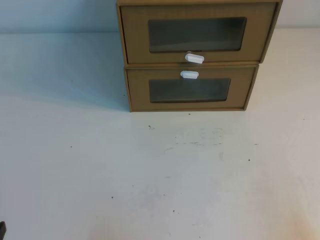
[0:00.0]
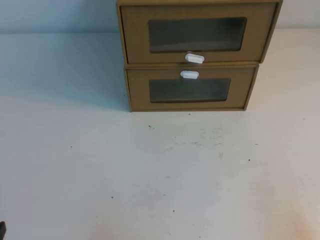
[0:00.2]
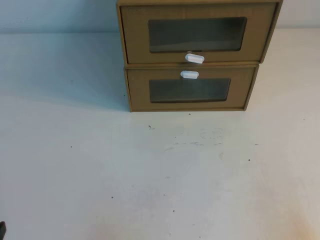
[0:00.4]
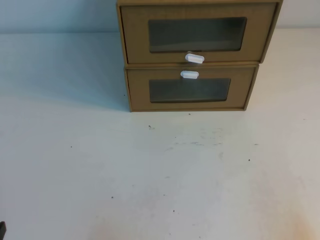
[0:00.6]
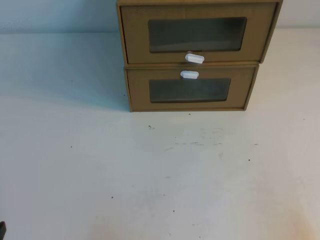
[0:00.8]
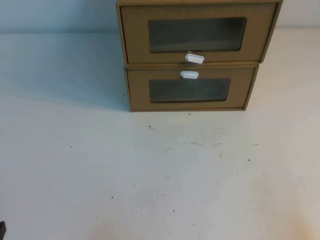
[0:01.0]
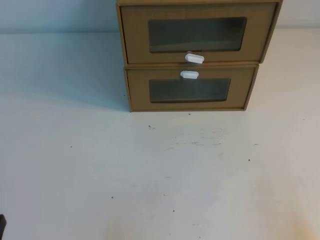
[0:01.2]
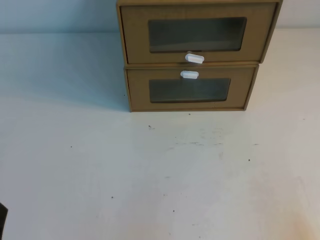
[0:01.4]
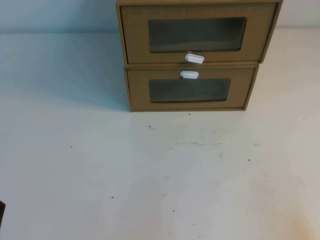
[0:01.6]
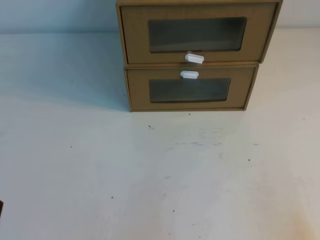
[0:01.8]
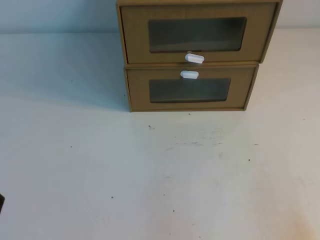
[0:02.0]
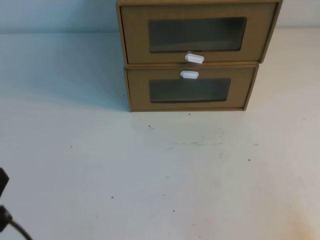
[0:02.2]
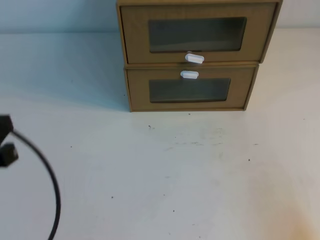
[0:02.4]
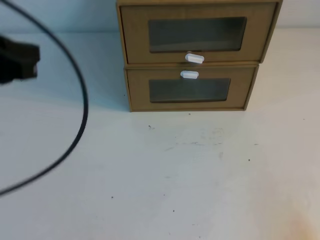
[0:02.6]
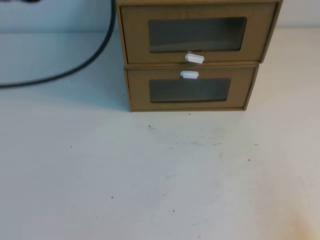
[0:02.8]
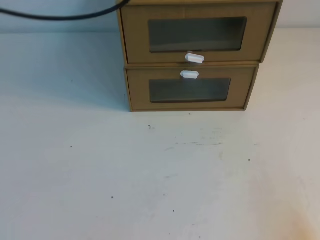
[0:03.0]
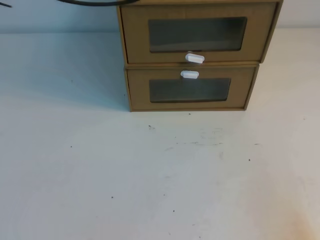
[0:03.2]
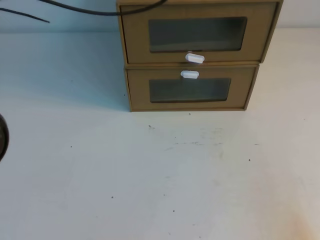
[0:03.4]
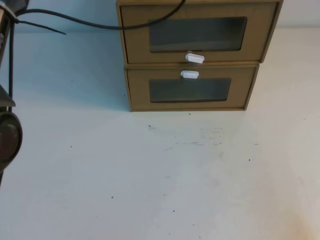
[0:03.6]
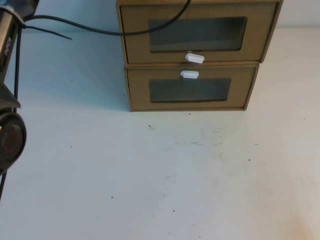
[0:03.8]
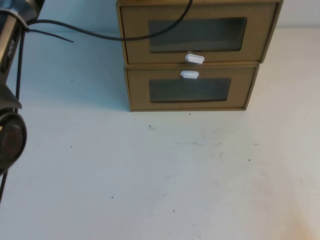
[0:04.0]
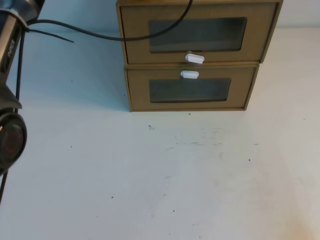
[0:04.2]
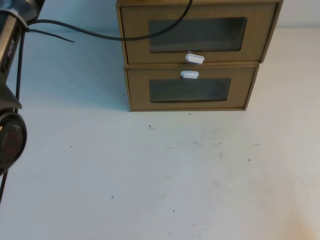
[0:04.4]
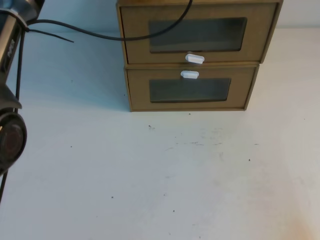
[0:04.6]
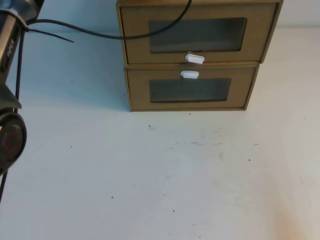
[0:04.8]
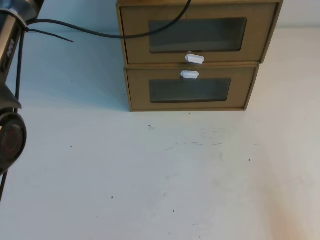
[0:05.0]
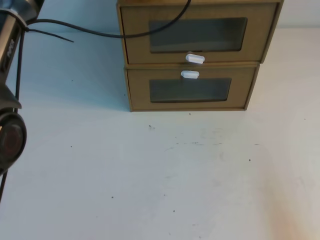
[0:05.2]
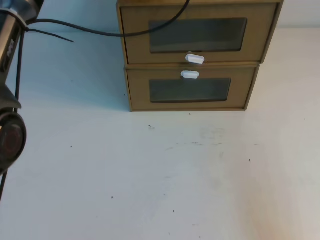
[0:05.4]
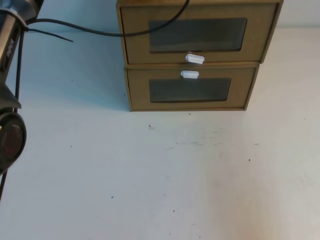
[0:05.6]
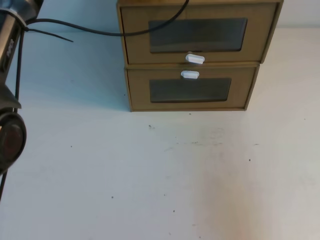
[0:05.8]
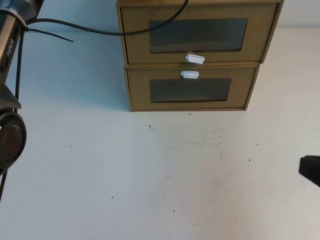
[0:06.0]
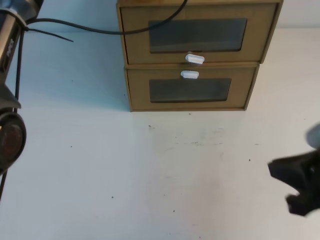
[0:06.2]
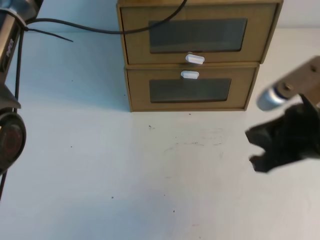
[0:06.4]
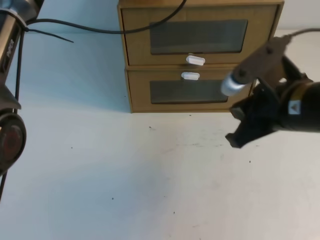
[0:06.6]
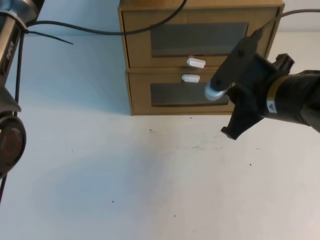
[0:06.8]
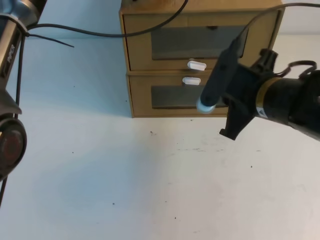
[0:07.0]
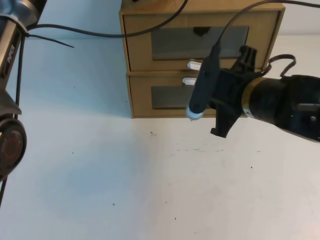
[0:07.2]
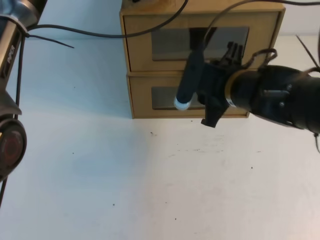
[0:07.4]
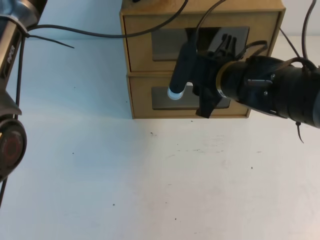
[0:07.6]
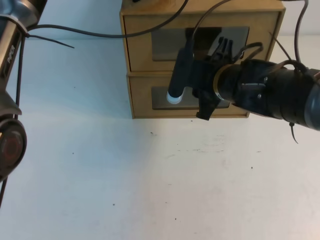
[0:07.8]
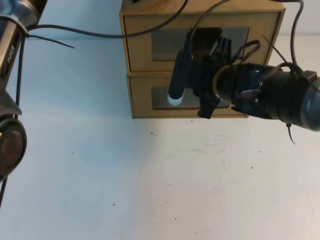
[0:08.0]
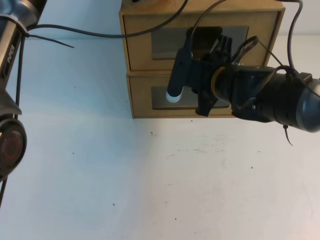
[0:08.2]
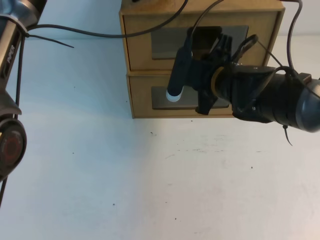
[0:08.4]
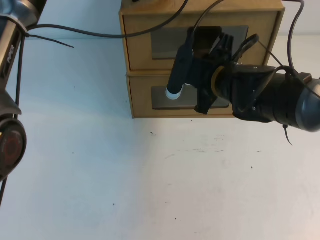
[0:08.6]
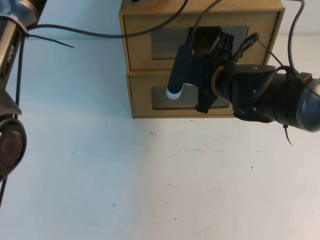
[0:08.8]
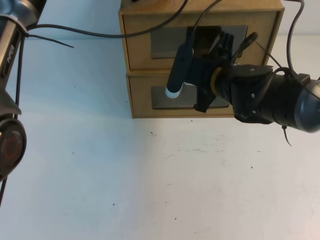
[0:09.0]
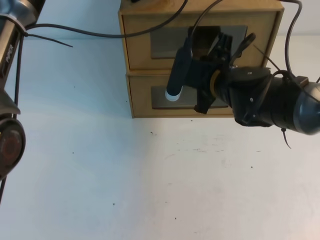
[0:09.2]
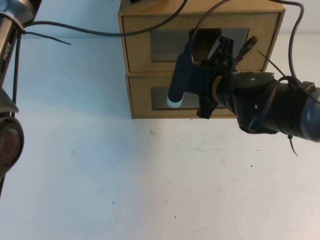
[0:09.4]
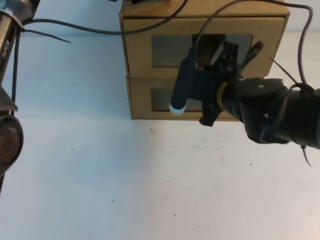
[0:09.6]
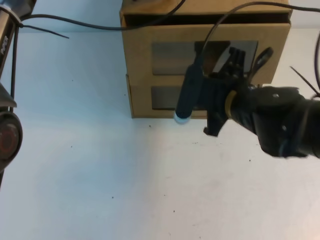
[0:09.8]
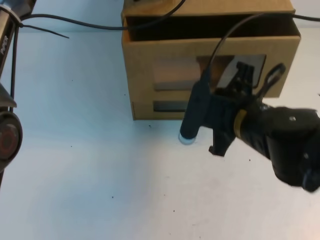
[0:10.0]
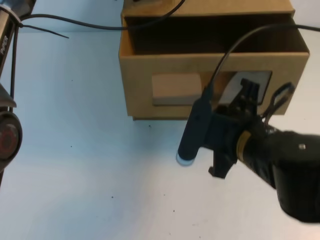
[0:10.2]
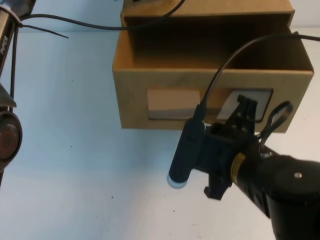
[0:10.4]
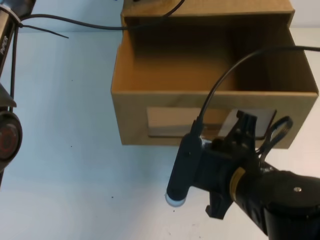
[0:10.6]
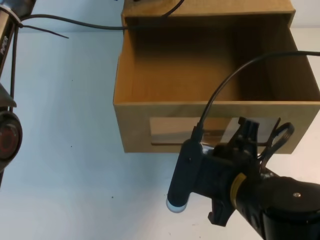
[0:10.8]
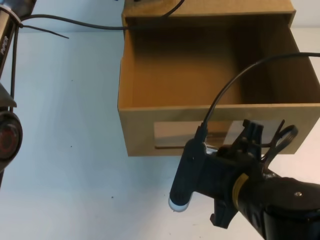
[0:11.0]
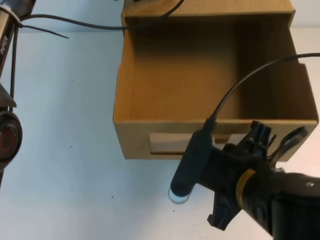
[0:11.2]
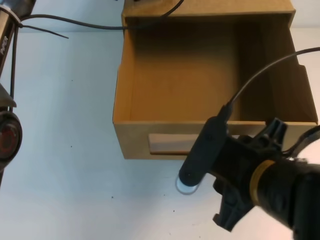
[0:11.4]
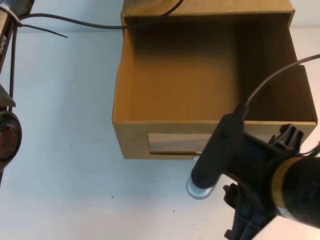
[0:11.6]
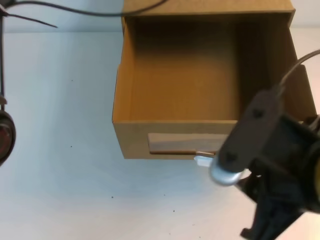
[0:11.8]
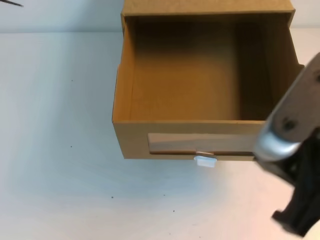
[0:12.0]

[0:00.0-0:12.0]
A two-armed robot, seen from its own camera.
Task of the whole recording: open the shoebox on the table.
0:01.6 to 0:03.0: The left gripper shifts about 40 cm upward and forward.
0:03.0 to 0:04.4: The left gripper moves forward, downward and to the right, some 20 cm.
0:04.4 to 0:06.0: The right gripper shifts about 15 cm upward, forward and to the left.
0:06.0 to 0:07.6: The right gripper moves forward and to the left, roughly 30 cm, and opens up.
0:07.6 to 0:09.0: The right gripper closes.
0:09.0 to 0:10.4: The right gripper moves backward, about 20 cm.
0:10.4 to 0:12.0: The left gripper shifts about 15 cm upward and backward. Meanwhile the right gripper is displaced upward, backward and to the right by roughly 15 cm, and opens up.

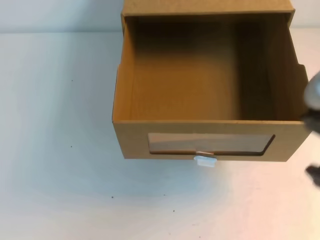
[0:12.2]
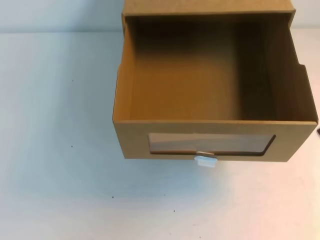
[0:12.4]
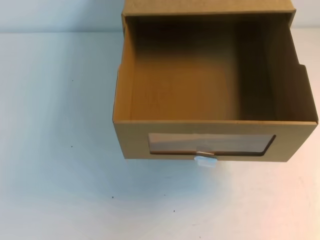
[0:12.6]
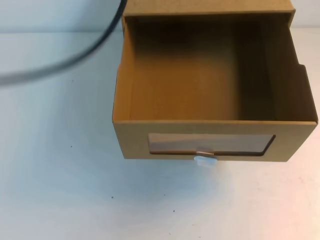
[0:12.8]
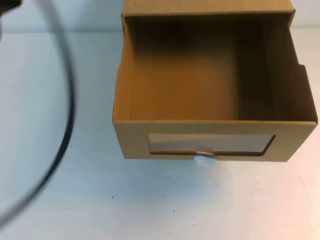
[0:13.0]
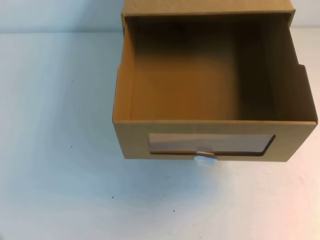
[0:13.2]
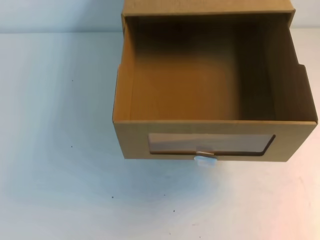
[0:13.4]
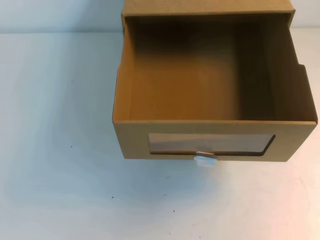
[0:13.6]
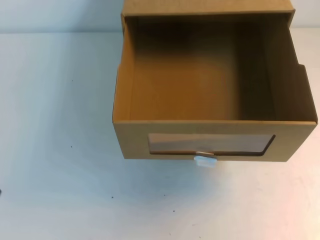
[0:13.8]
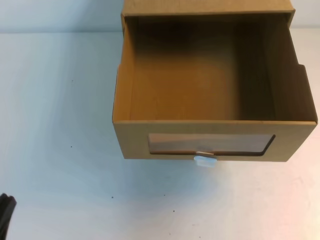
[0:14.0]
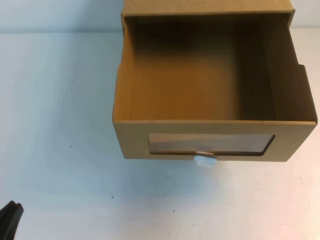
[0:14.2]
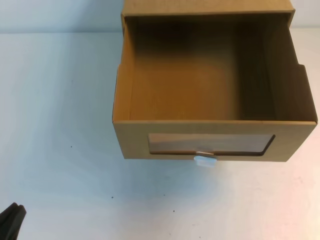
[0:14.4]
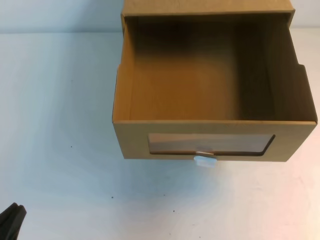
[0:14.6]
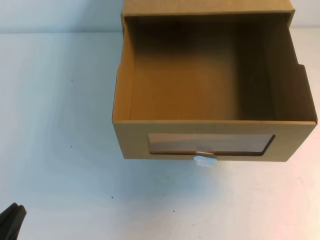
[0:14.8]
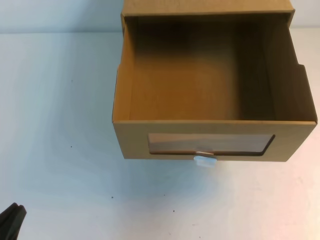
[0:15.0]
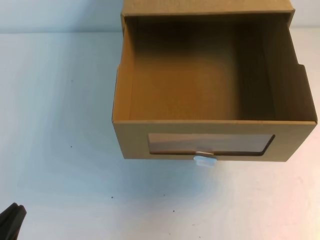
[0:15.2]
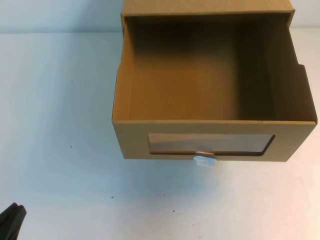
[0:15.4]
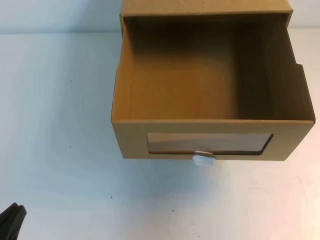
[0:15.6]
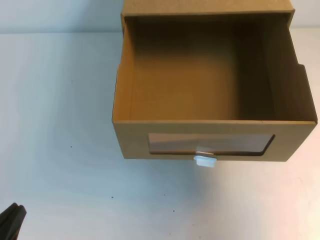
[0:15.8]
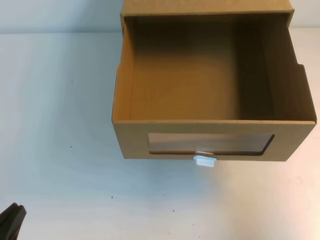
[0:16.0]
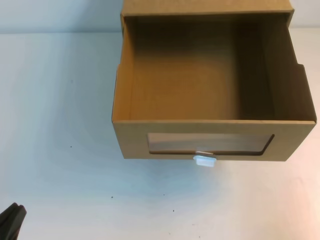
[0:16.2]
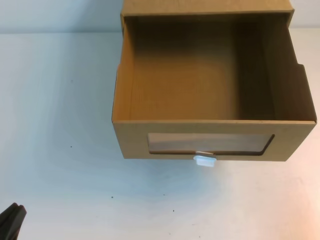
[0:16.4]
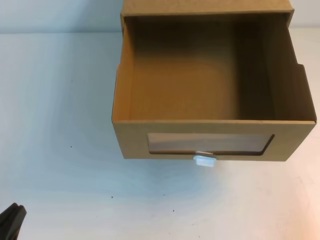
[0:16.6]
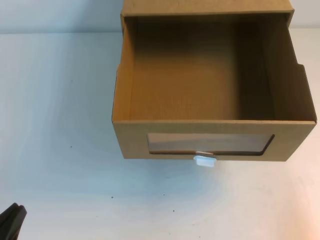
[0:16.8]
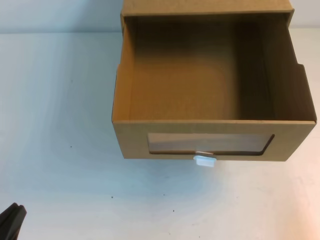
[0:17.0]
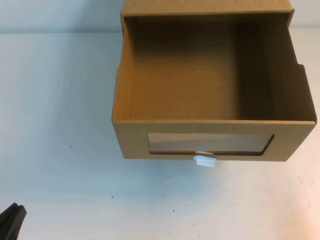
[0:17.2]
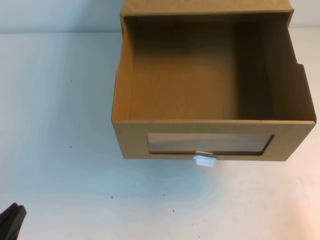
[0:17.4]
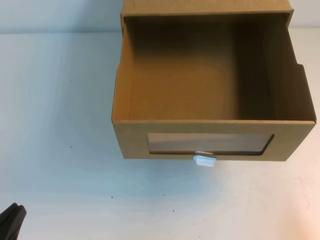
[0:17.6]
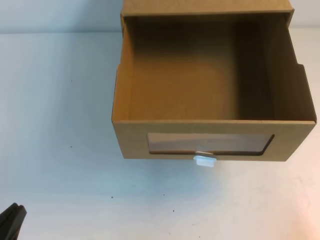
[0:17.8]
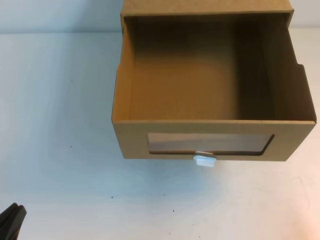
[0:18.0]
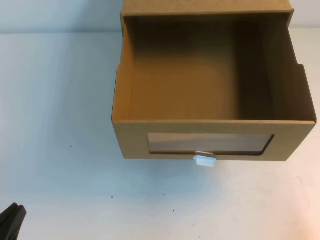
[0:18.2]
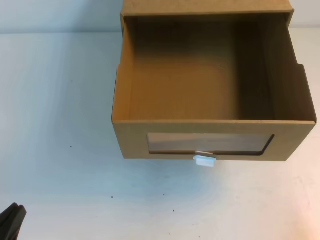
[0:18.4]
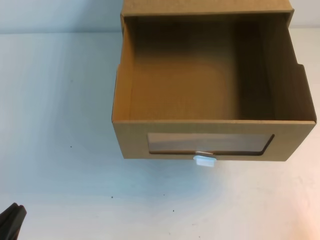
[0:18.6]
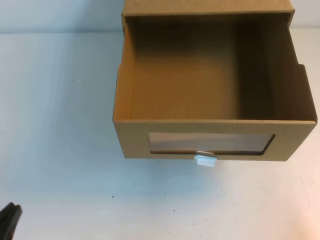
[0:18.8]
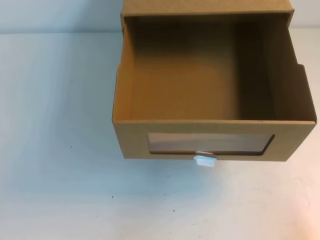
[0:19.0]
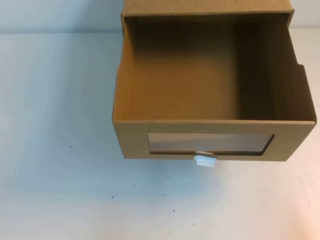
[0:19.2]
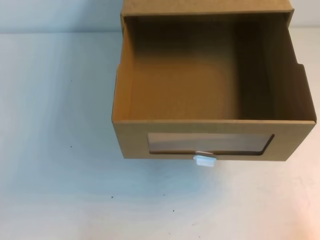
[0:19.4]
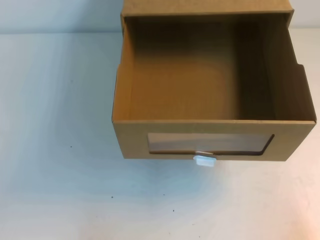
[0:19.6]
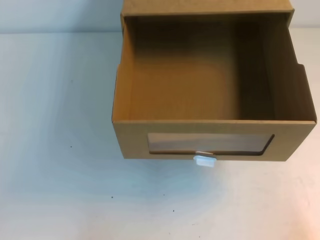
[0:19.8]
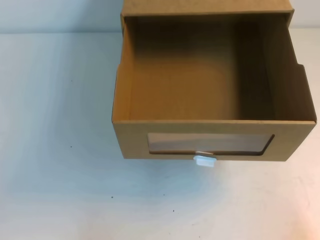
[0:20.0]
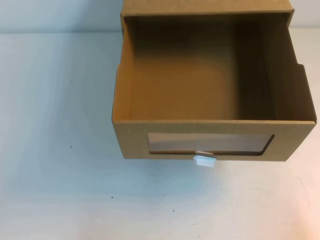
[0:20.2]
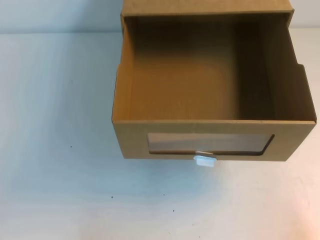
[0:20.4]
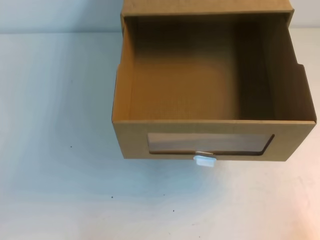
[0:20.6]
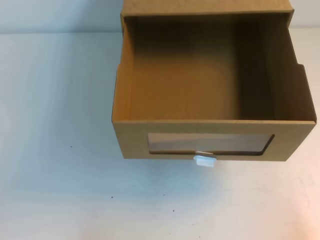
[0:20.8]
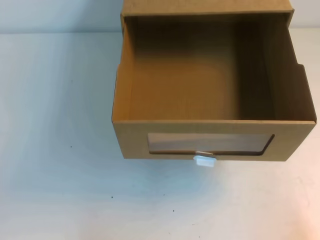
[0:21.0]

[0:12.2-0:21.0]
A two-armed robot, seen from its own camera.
Task of the whole recording: open the shoebox on the table.
Step, 0:12.2 to 0:21.0: Open the shoe box.
0:12.2 to 0:13.6: The right gripper goes roughly 5 cm to the right.
0:13.6 to 0:15.2: The left gripper shifts some 10 cm downward.
0:15.2 to 0:16.6: The right gripper is displaced downward by roughly 25 cm.
0:19.6 to 0:21.0: Neither gripper changes place.

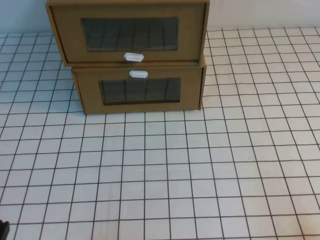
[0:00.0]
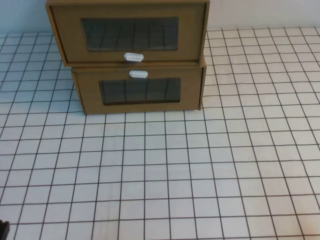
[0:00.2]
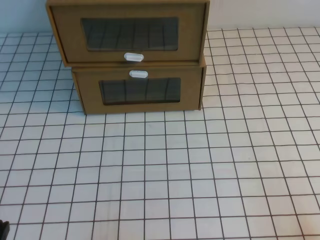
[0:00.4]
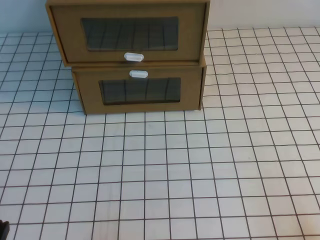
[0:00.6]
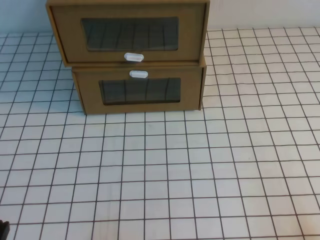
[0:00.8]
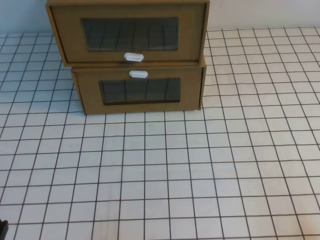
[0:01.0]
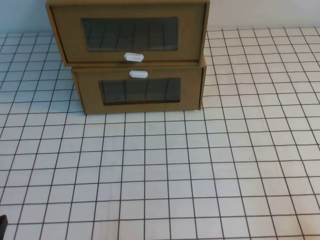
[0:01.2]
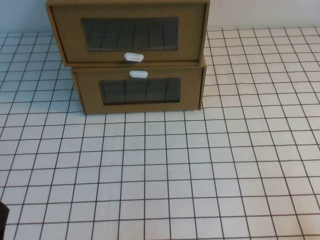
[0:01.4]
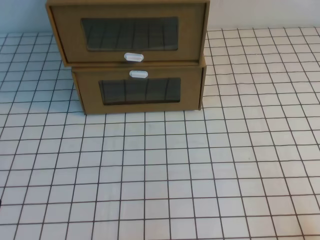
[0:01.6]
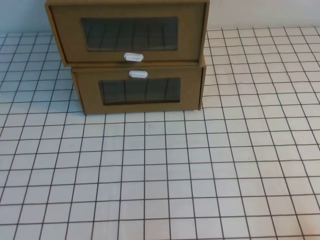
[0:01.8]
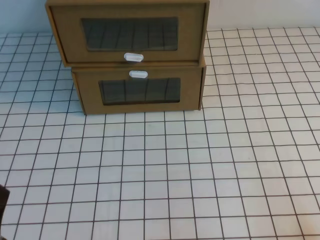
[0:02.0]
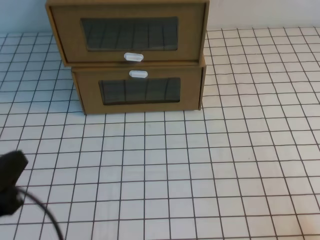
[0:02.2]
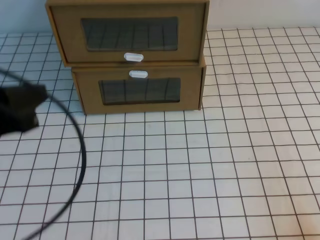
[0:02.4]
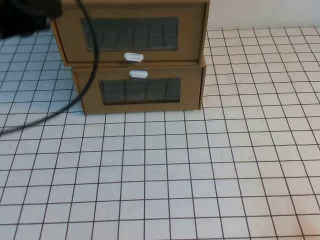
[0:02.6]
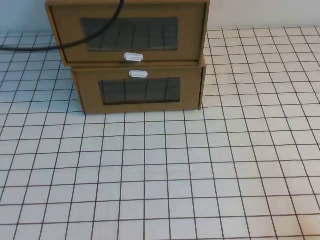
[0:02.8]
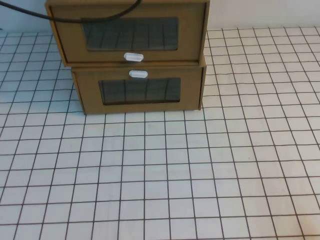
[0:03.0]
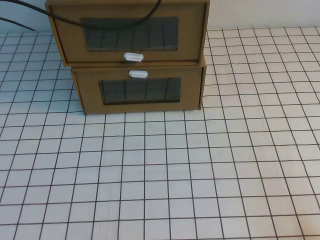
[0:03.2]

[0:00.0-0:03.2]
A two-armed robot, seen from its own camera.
Task of the whole recording: open the shoebox on the white tablecloth.
0:01.6 to 0:03.2: The left gripper moves forward and upward, approximately 50 cm.
